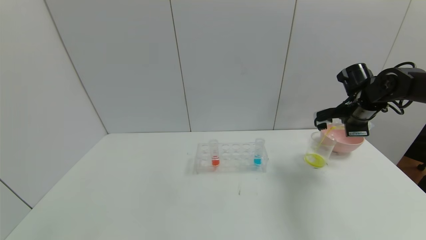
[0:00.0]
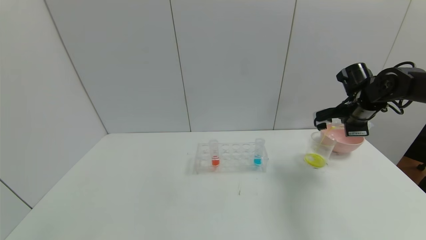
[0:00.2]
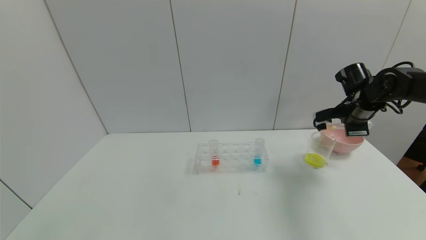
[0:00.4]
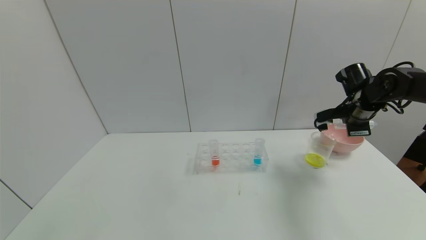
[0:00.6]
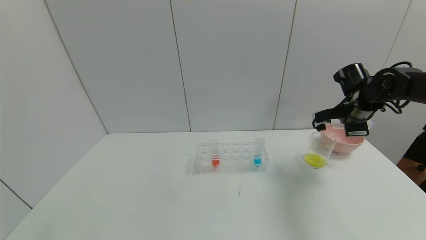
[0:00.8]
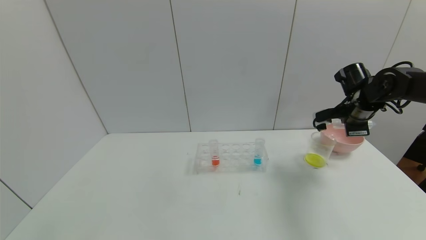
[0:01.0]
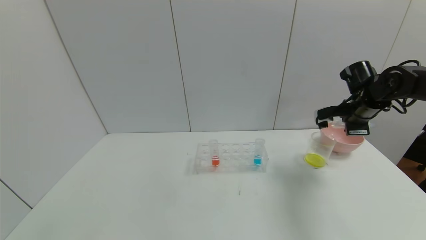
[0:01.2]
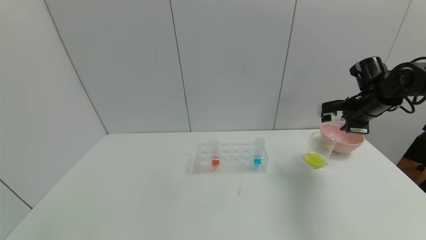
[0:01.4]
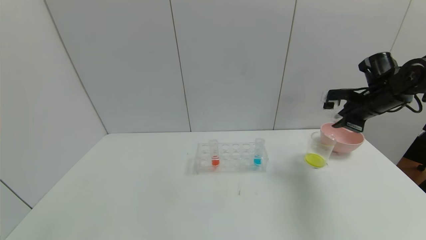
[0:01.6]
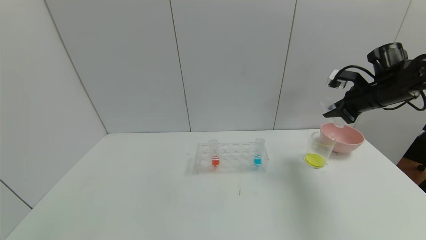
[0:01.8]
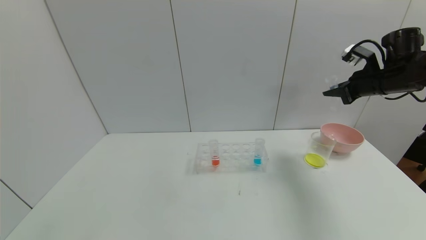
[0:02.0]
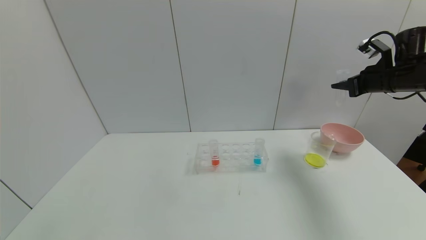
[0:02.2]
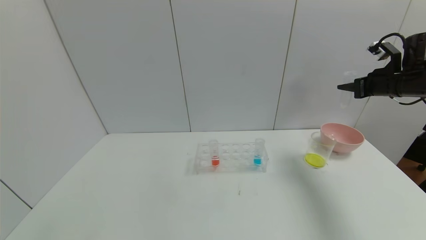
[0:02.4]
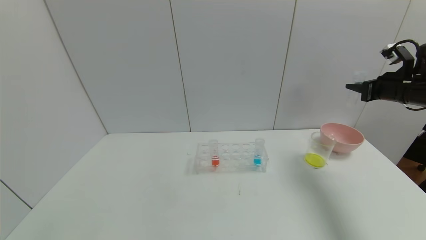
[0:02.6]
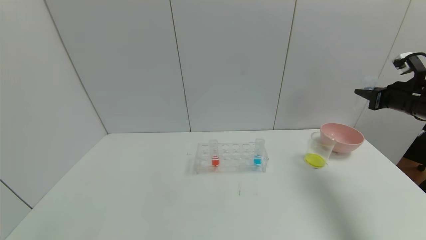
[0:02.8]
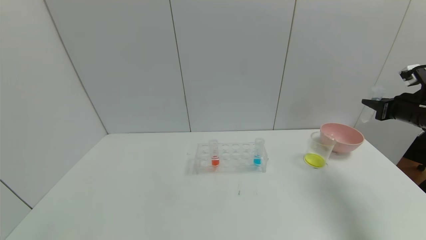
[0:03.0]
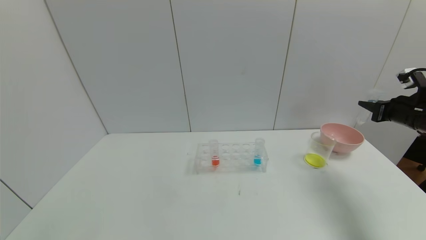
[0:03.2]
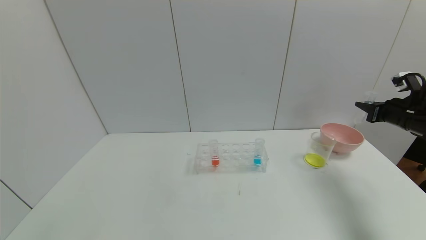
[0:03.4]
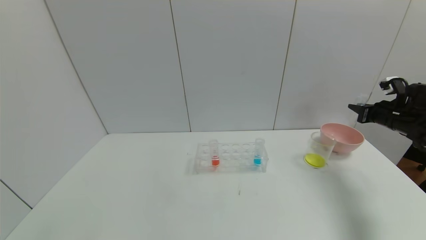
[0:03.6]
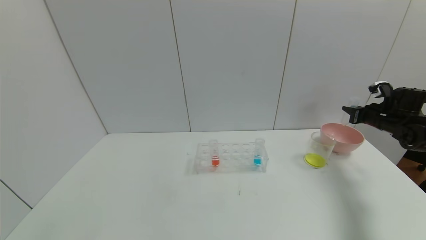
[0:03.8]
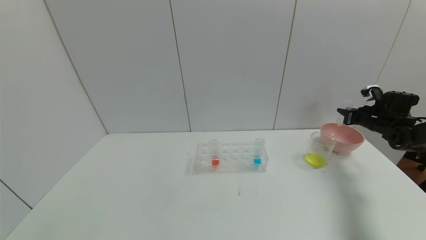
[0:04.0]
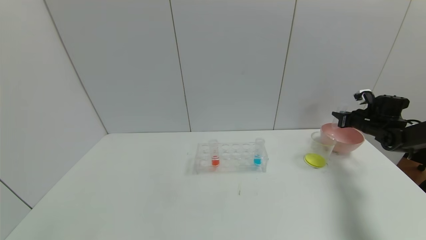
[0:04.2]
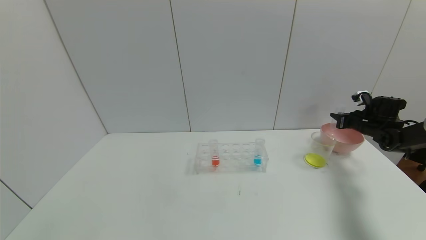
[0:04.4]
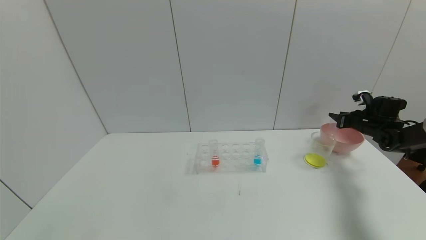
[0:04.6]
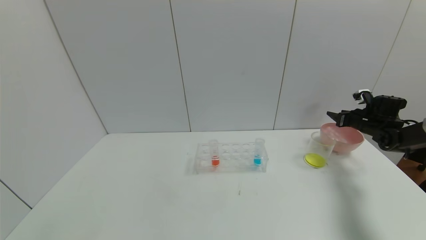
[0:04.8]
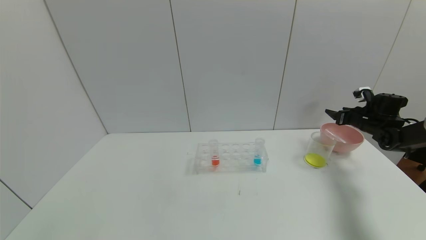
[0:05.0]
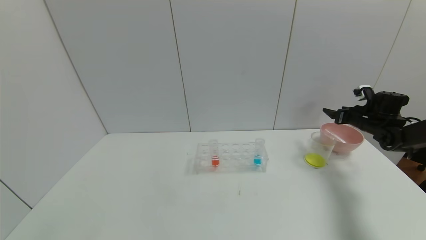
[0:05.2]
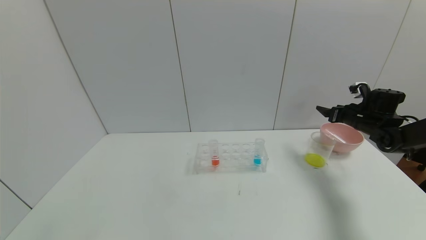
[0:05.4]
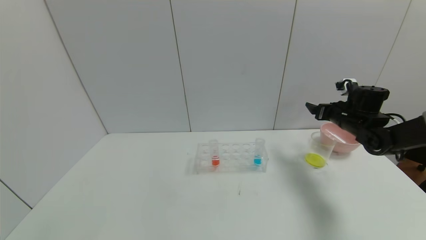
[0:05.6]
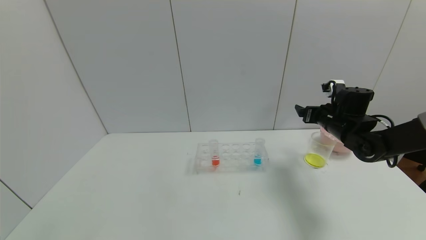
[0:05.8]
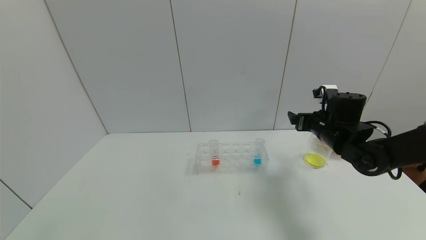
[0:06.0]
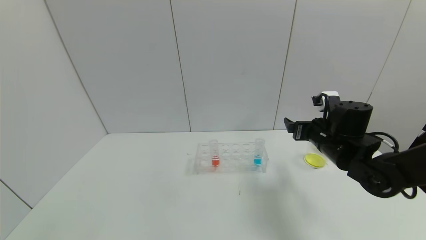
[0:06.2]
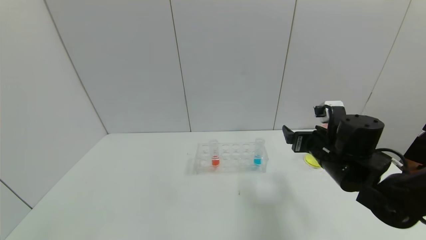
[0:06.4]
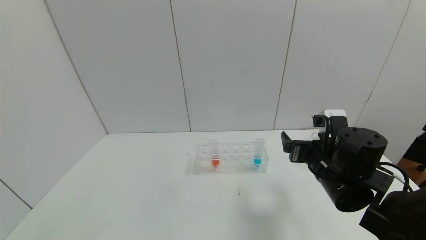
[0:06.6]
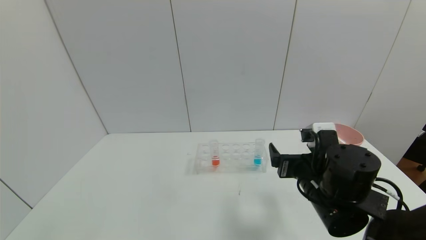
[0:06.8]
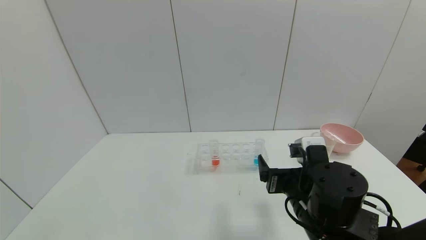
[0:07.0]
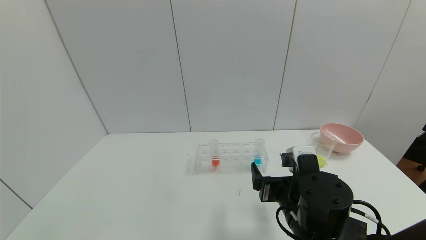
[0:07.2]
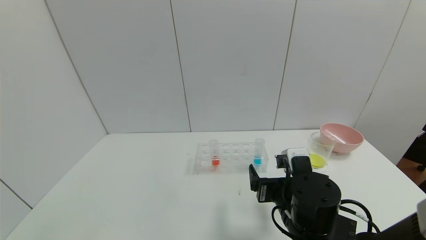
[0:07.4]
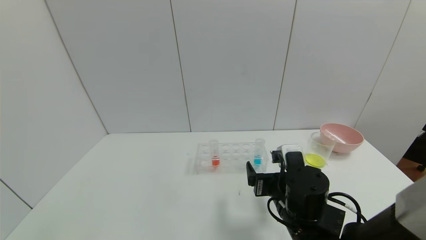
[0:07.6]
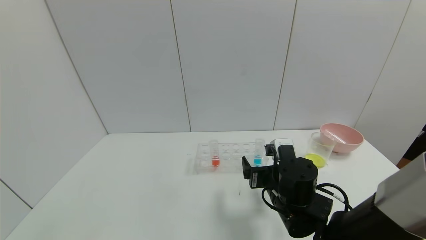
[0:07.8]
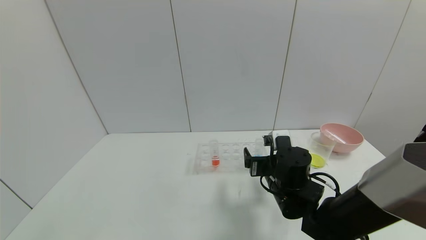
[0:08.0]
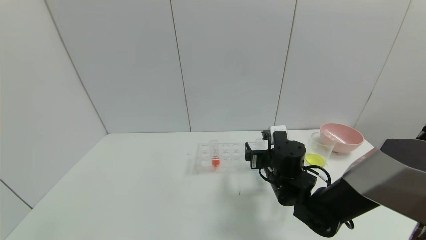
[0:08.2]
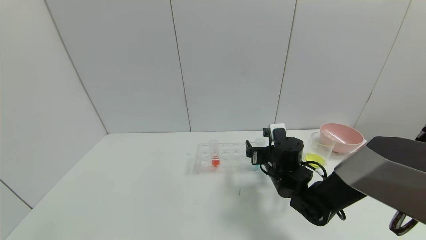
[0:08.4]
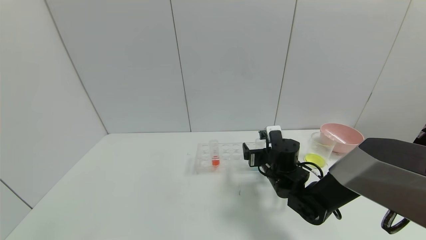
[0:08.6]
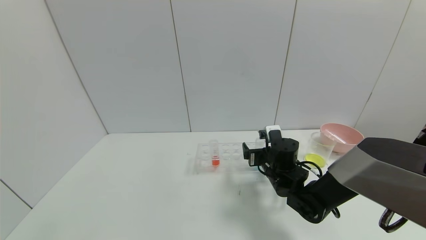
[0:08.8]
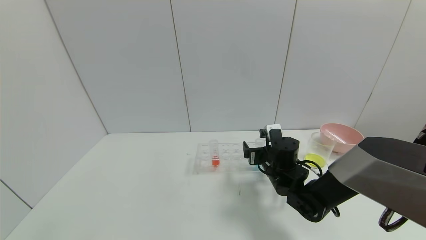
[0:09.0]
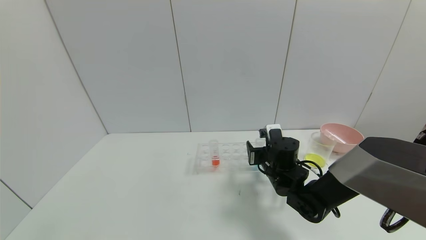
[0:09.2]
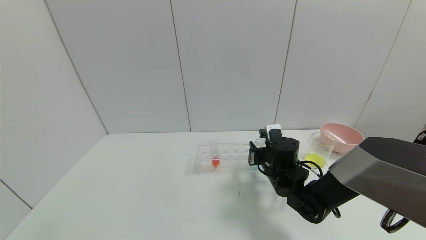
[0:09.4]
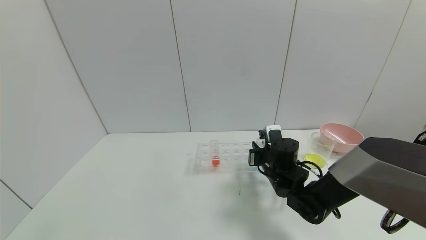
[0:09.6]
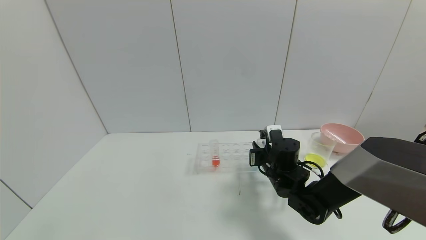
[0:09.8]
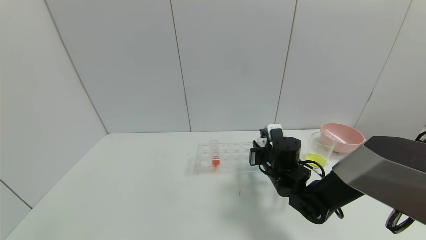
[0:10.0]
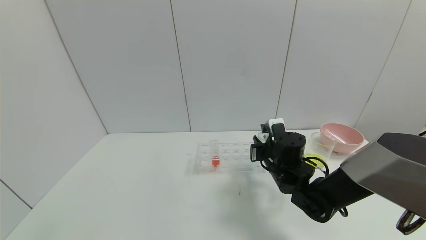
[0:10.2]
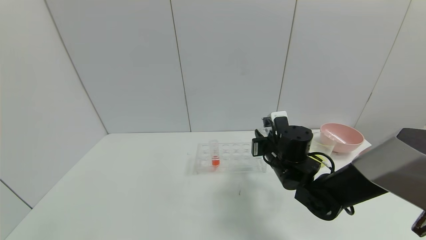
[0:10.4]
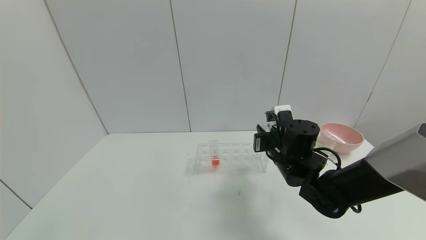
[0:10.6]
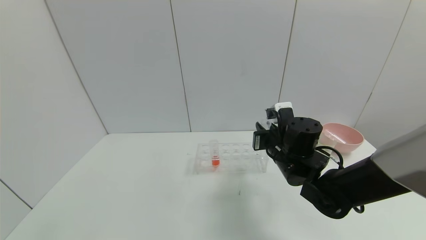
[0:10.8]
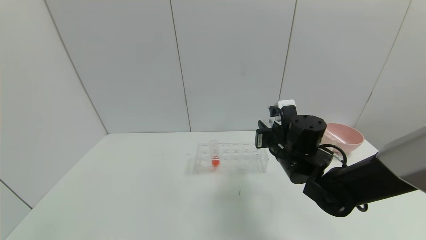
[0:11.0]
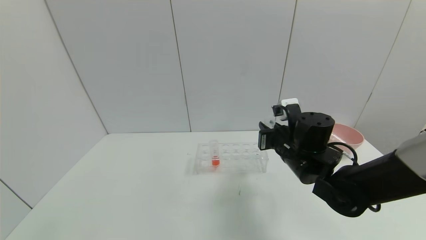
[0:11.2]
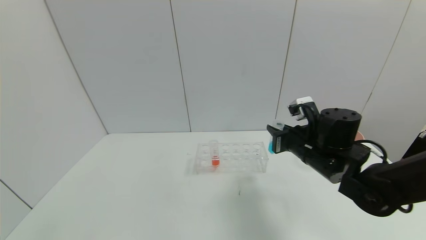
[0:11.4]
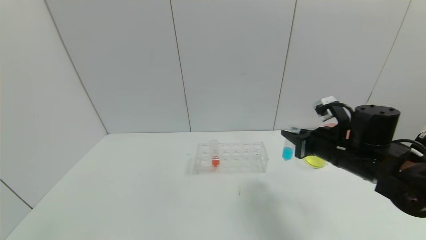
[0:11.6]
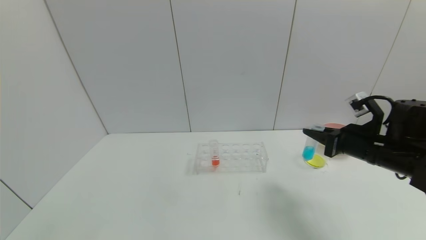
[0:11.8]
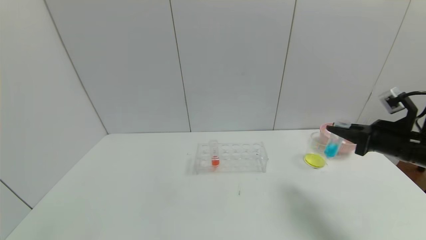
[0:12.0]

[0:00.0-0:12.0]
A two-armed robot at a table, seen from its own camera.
Task of the whole recording: pick up the test tube with yellow pigment and the test tube with blue pigment by grippers and pour them into the beaker.
Step, 0:01.2 to 0:04.8: Place the test tube into the bowl with the right gripper.
Step, 0:05.0 to 0:09.6: Grasp the blue reagent with the right gripper.
0:01.6 to 0:03.0: The right gripper heads to the right and backward, covering roughly 10 cm.
0:03.0 to 0:04.4: The right gripper is displaced forward and downward by roughly 15 cm.
0:04.4 to 0:06.0: The right gripper moves to the left and backward, roughly 25 cm, and opens up.
0:06.0 to 0:07.6: The right gripper goes roughly 20 cm backward, to the left and downward.
0:07.6 to 0:09.0: The right gripper heads forward, covering approximately 10 cm.
0:09.0 to 0:10.4: The right gripper closes its fingers.
0:10.4 to 0:12.0: The right gripper moves to the right, about 20 cm.

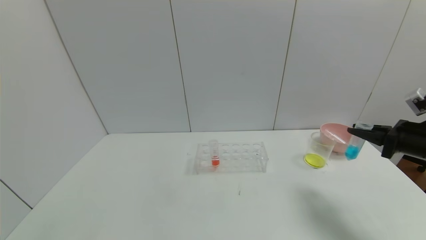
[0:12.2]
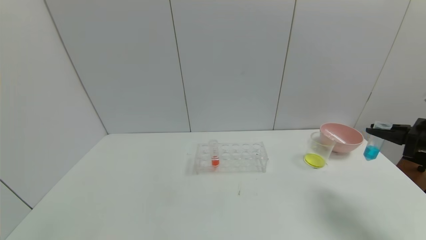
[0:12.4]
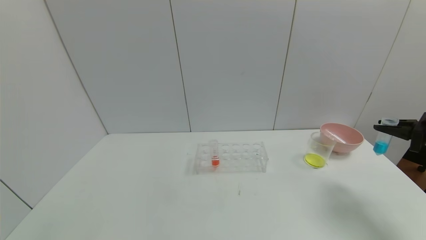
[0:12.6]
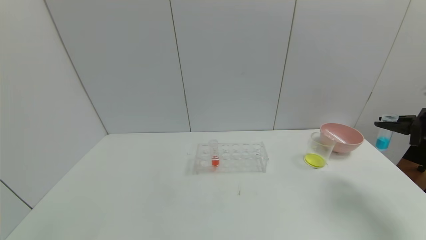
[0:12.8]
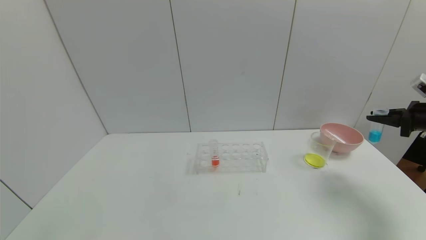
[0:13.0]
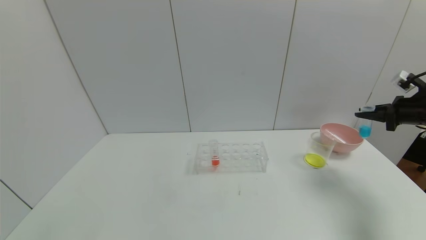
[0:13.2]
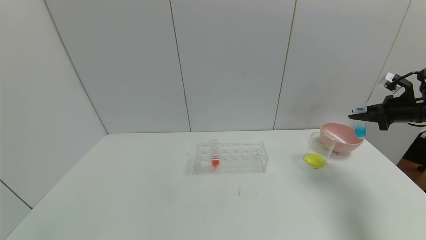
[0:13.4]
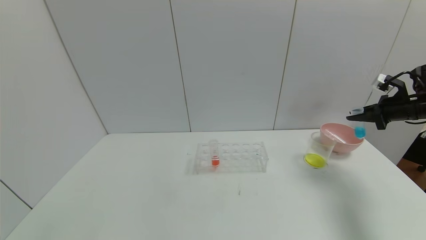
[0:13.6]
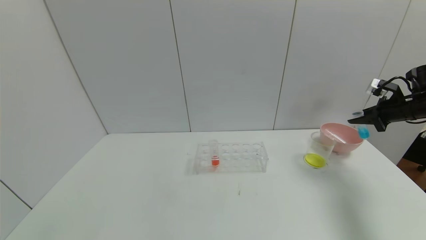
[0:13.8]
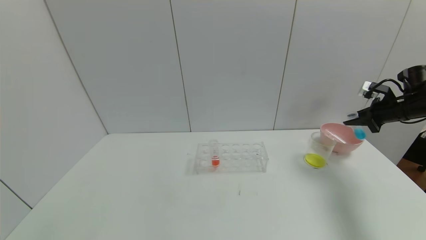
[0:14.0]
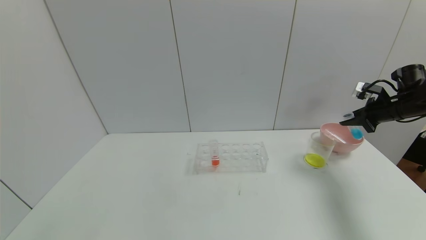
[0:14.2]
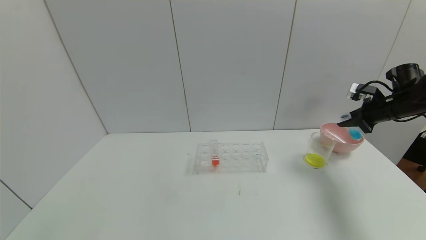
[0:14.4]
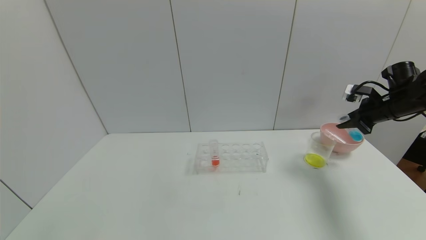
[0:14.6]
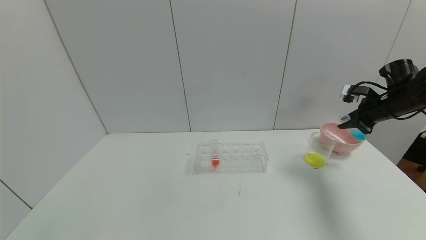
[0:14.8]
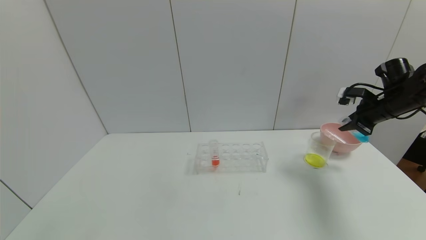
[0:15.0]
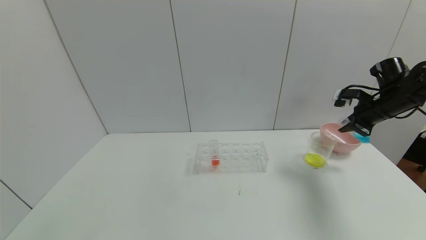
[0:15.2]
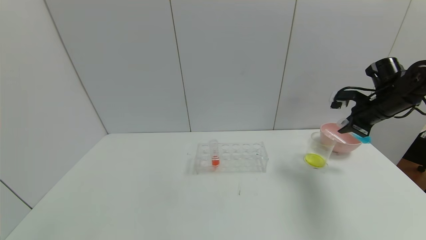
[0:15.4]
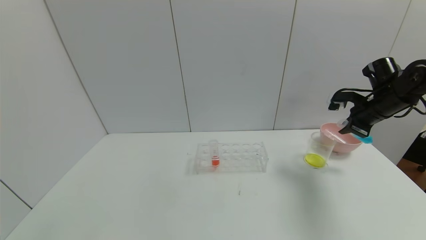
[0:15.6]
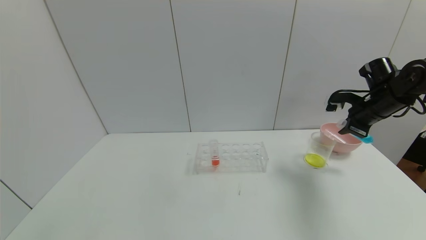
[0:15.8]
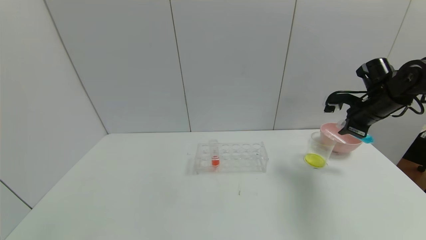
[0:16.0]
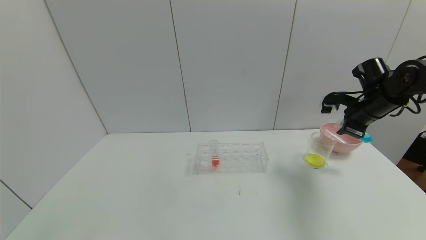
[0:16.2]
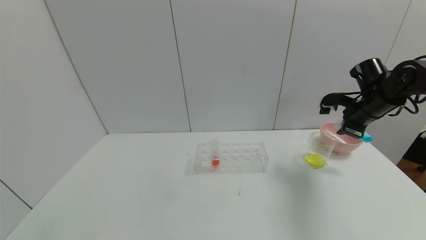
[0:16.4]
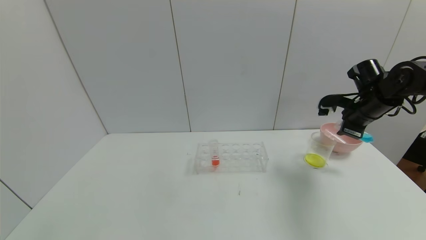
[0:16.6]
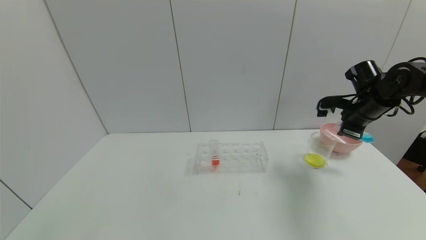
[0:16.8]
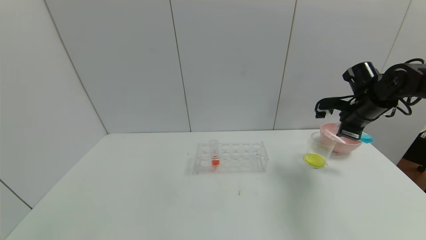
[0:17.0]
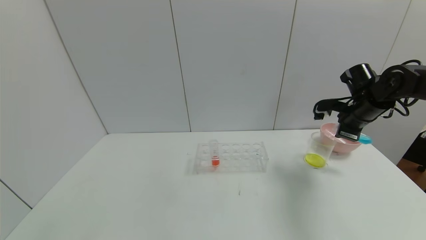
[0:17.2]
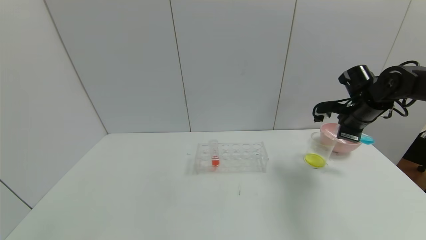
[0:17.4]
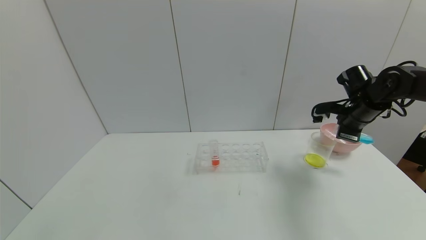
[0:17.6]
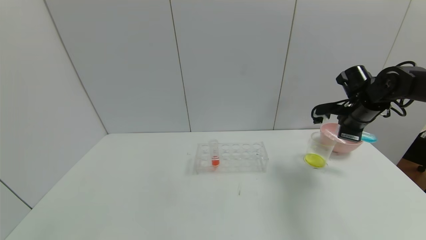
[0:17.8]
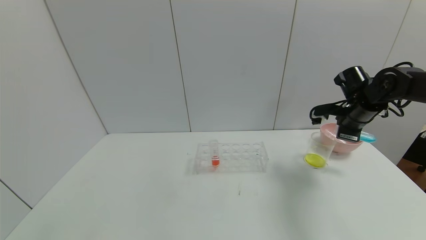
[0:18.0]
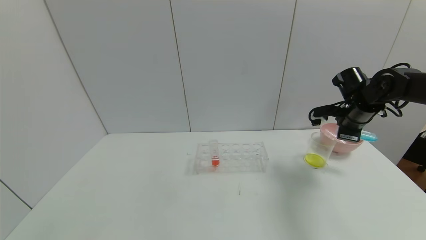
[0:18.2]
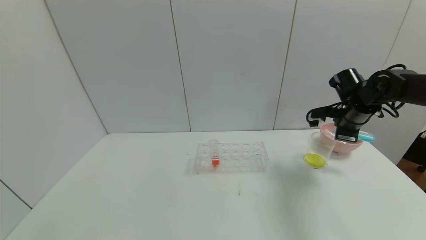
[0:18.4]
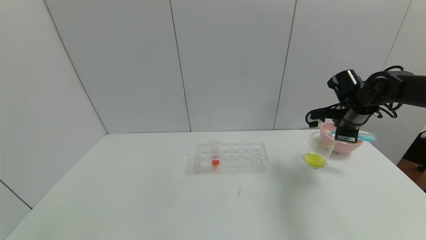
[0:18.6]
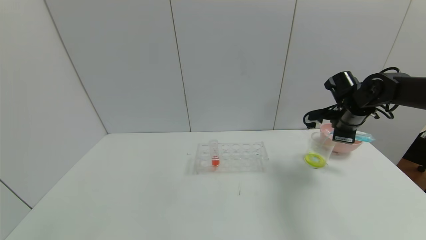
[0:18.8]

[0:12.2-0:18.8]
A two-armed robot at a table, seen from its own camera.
Task of the whole recording: pick up the test tube with yellow pigment and the test tube with blue pigment by grippers and pour them into the beaker.
0:12.2 to 0:13.8: The right gripper heads forward and to the right, covering roughly 15 cm.
0:13.8 to 0:15.4: The right gripper heads to the left, covering roughly 10 cm.
0:15.4 to 0:17.2: The grippers move only a little.
0:17.2 to 0:18.8: The grippers move only a little.
